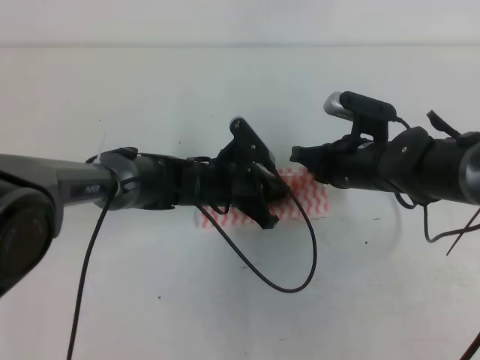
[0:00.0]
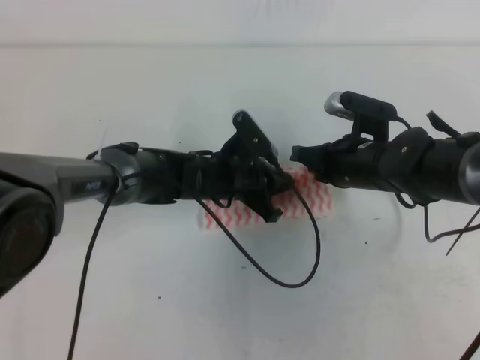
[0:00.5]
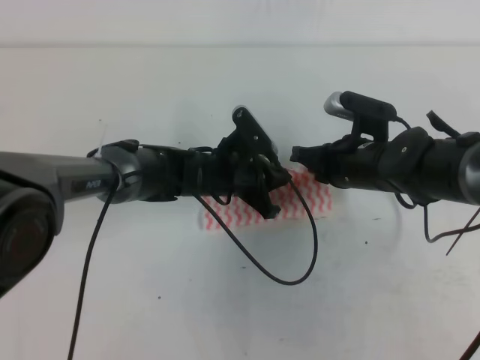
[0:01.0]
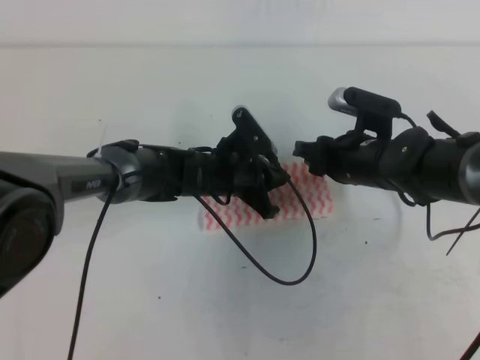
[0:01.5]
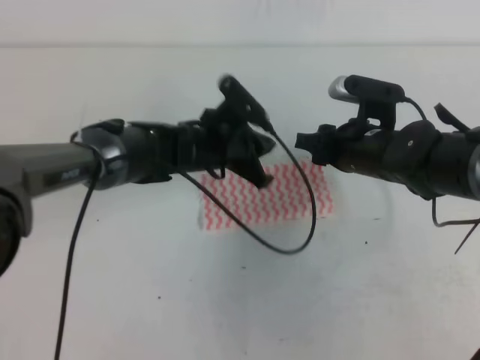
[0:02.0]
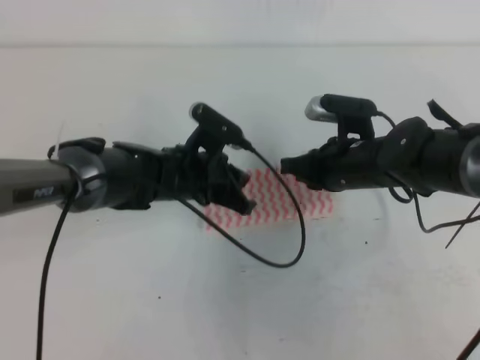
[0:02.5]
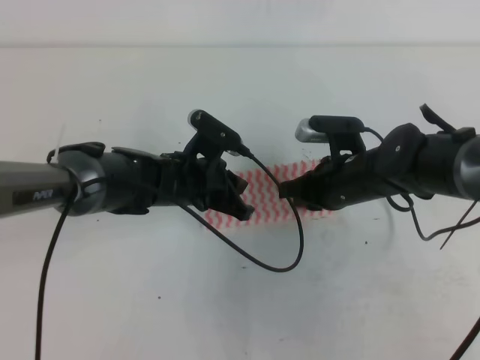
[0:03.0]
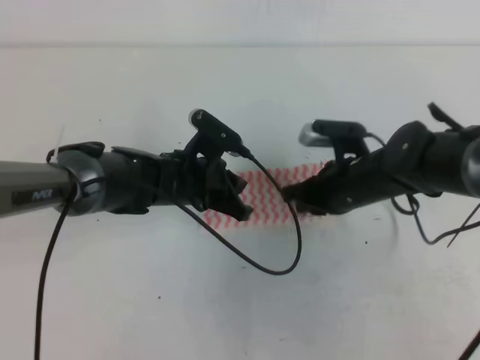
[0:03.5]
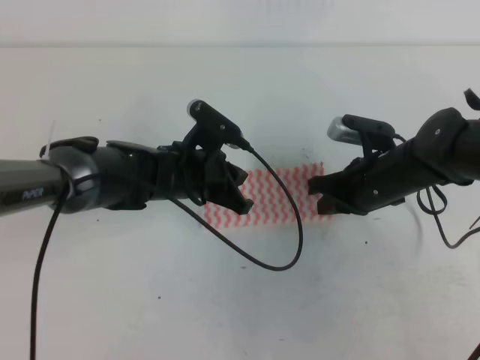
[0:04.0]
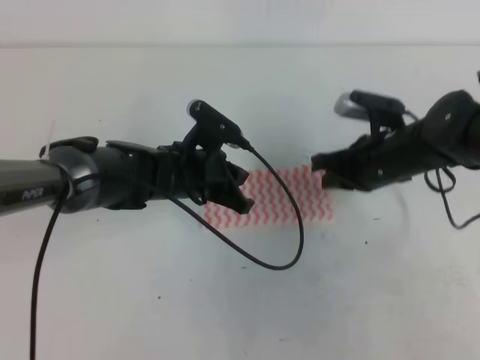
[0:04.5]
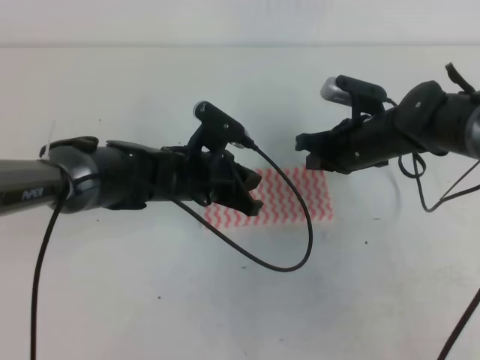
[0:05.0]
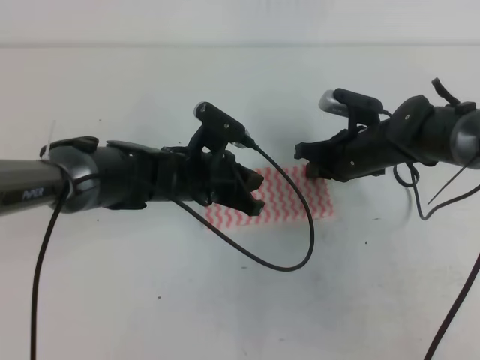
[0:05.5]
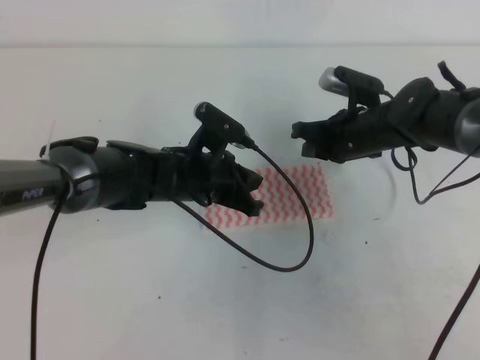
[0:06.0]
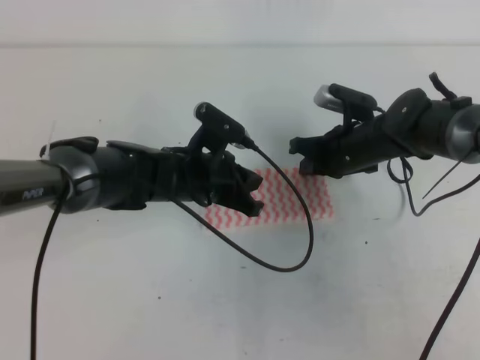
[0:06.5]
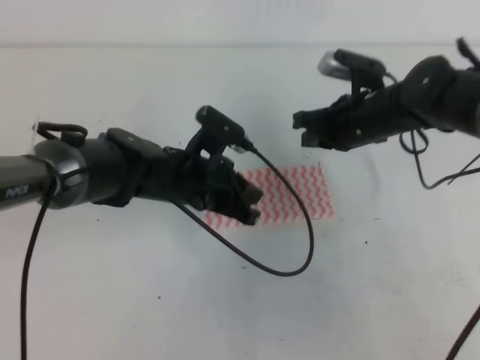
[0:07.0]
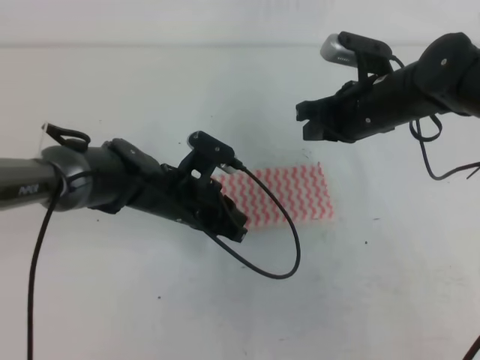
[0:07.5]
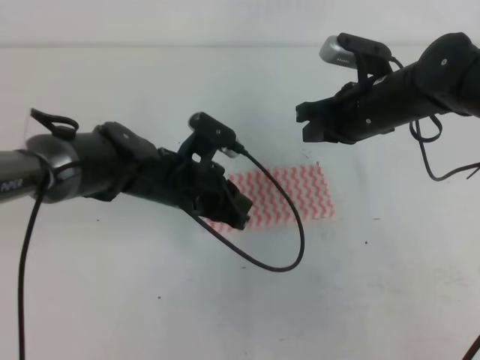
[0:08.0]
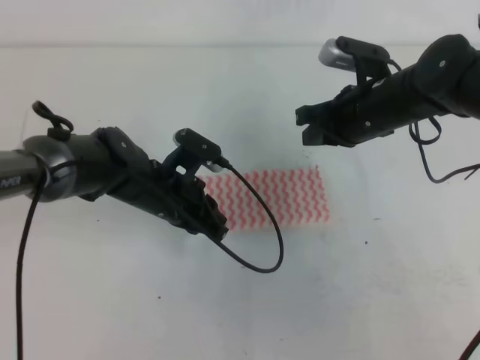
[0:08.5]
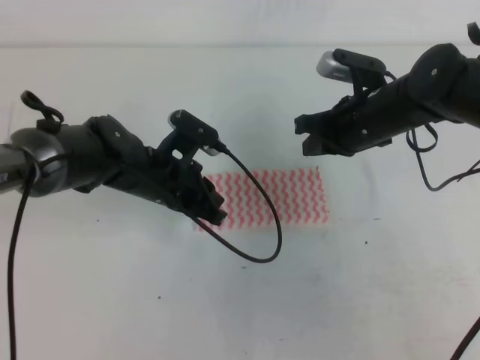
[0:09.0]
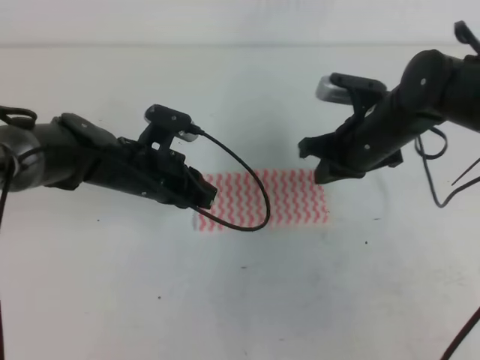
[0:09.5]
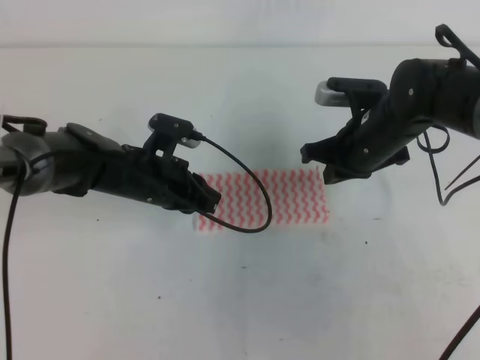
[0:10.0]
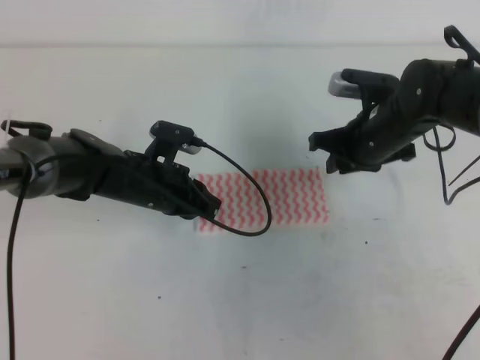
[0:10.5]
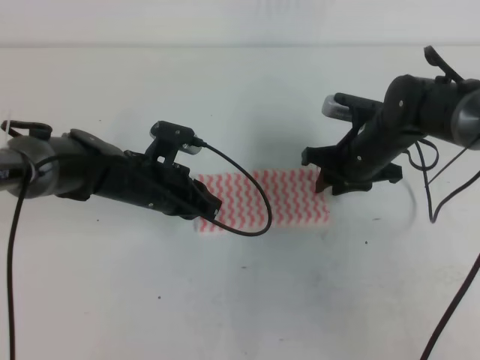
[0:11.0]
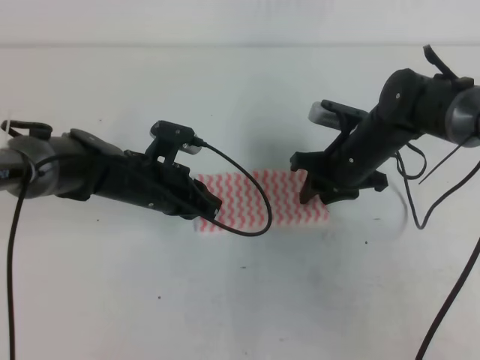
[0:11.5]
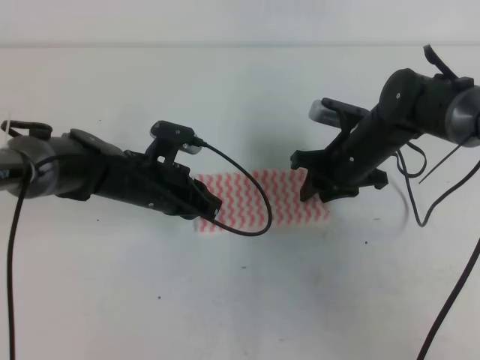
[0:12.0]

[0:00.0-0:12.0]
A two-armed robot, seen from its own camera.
0:00.0 to 0:02.0: The right gripper opens up.
0:02.0 to 0:04.0: The right gripper closes.
0:04.0 to 0:06.0: The right gripper shifts roughly 5 cm forward.
0:06.0 to 0:08.0: The right gripper shifts some 10 cm upward.
0:08.0 to 0:10.0: The left gripper ends up about 5 cm from where it was.
0:10.0 to 0:12.0: The right gripper heads downward, covering roughly 5 cm, and opens up.

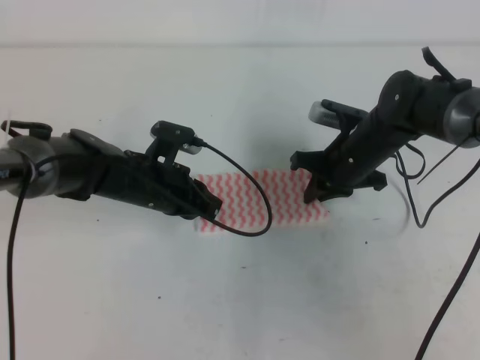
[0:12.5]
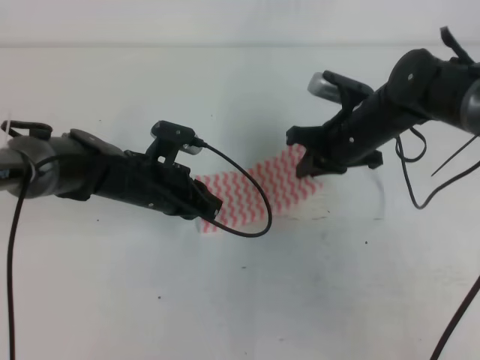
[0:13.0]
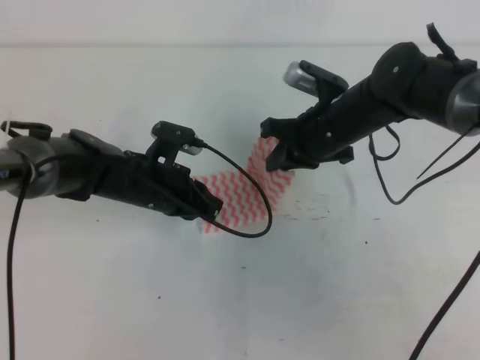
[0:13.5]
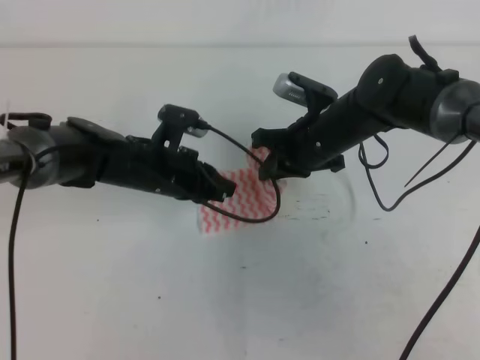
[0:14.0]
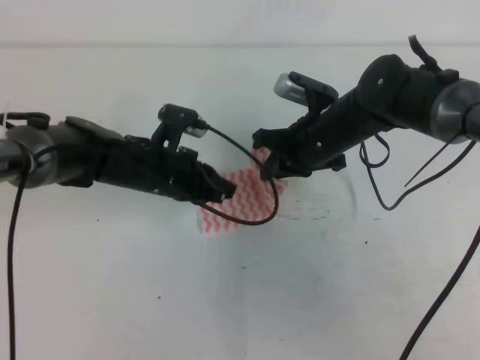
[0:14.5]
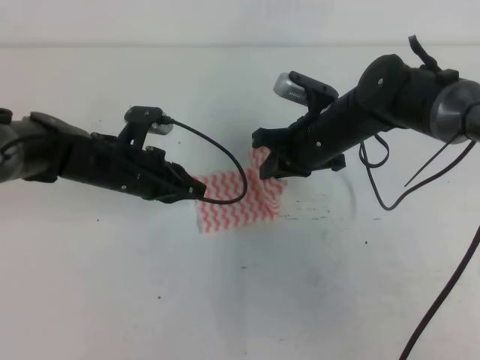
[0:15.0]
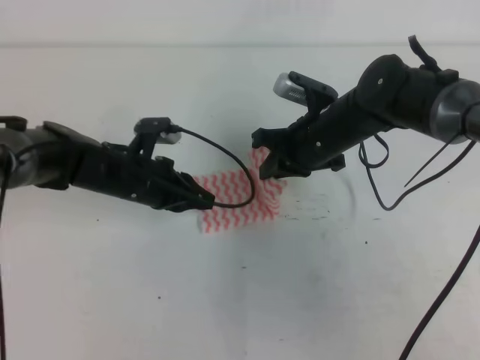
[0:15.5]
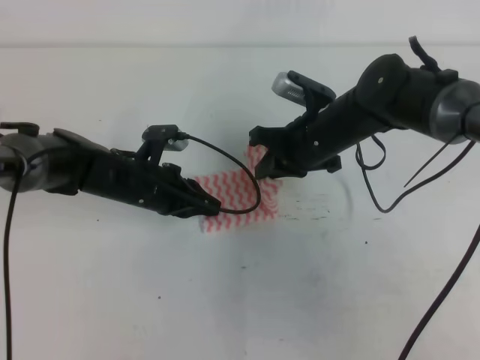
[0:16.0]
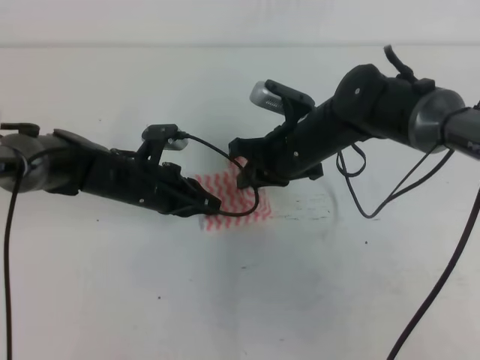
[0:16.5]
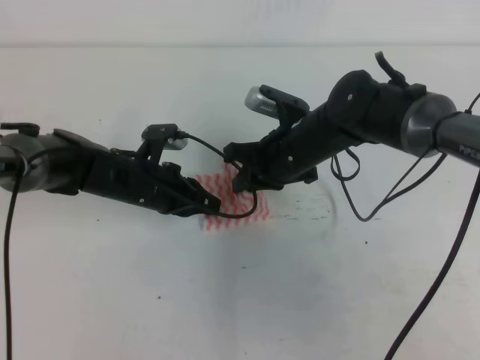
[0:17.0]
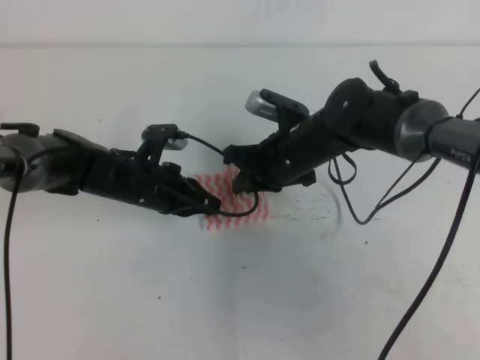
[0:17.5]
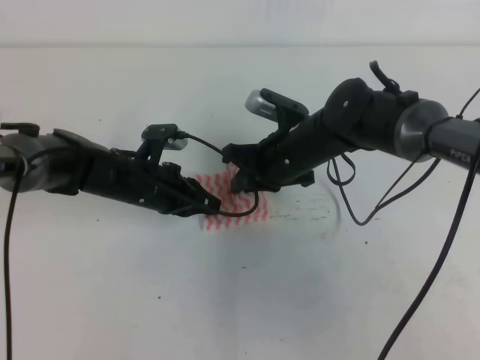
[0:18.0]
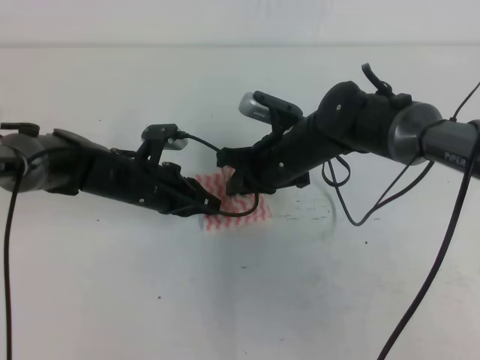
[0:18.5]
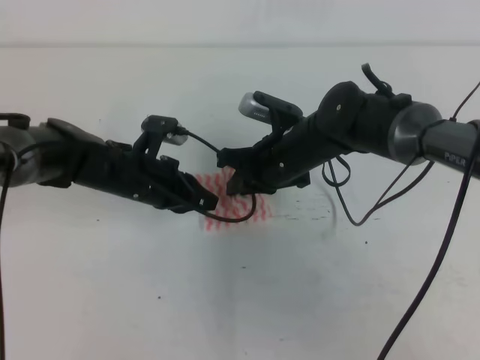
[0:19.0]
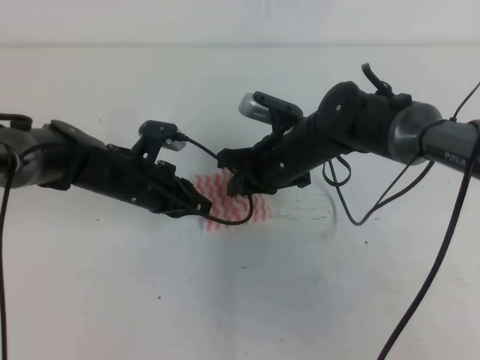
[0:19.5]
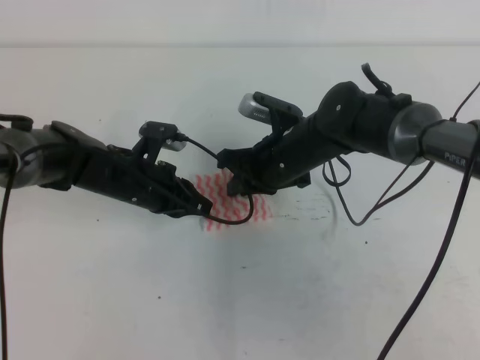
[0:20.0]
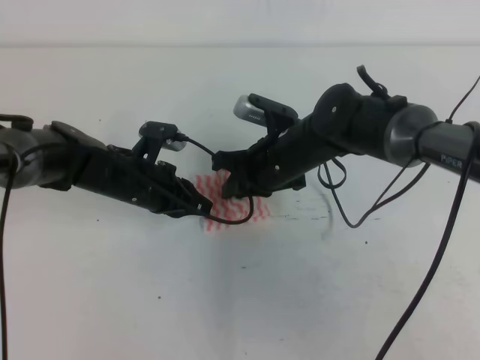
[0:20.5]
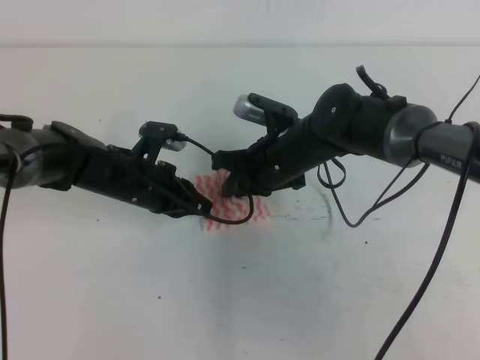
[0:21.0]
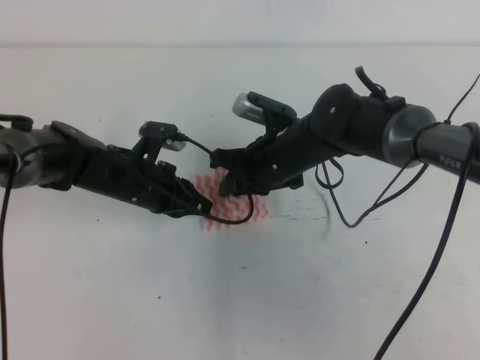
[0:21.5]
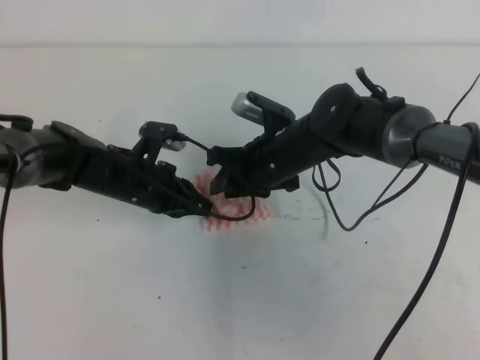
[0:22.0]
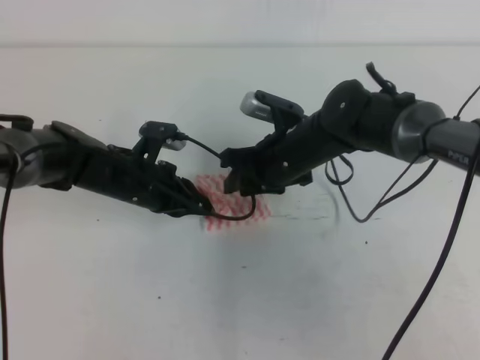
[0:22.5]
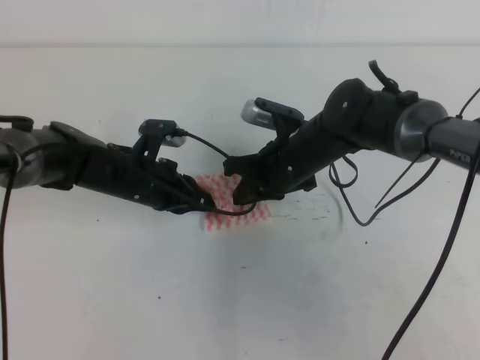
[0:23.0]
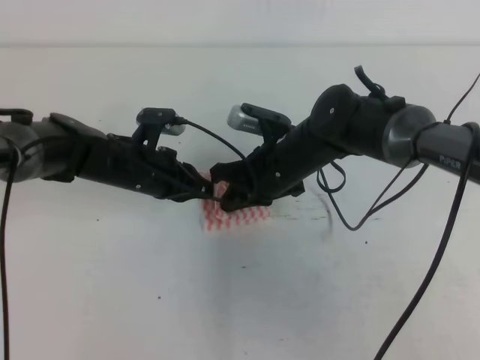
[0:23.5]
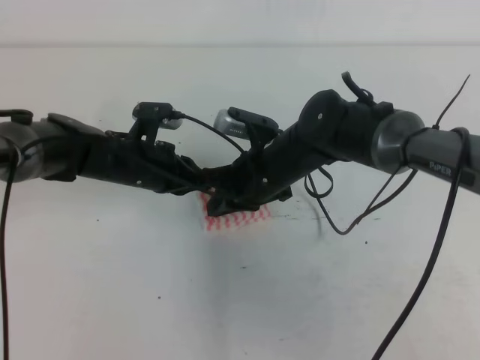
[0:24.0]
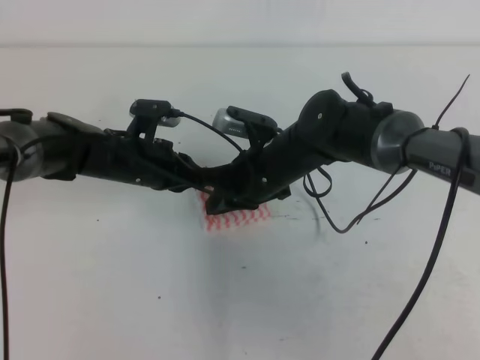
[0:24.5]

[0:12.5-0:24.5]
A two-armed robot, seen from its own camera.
0:12.5 to 0:14.5: The right gripper changes place by some 5 cm.
0:14.5 to 0:20.5: The grippers move only a little.
0:20.5 to 0:22.5: The right gripper opens its fingers.
0:22.5 to 0:24.5: The right gripper closes its fingers.

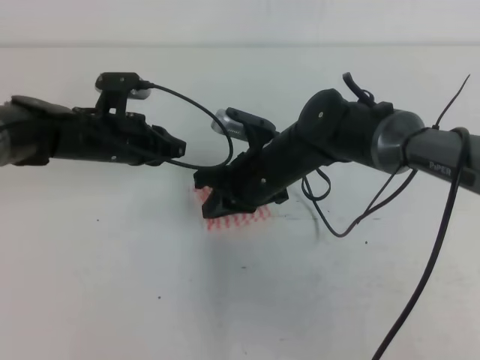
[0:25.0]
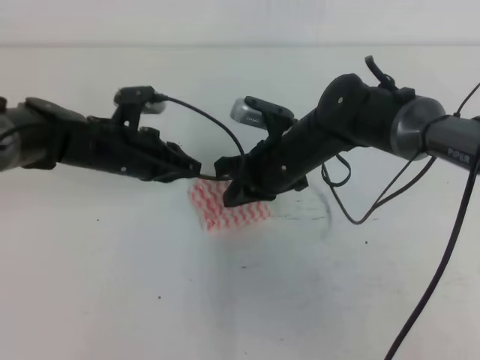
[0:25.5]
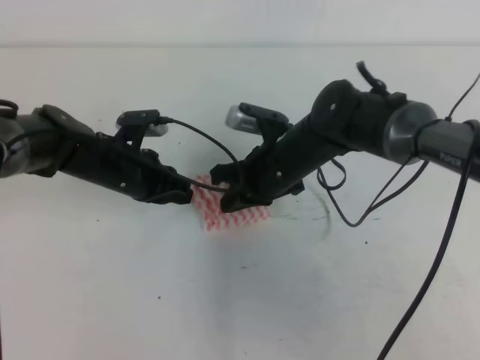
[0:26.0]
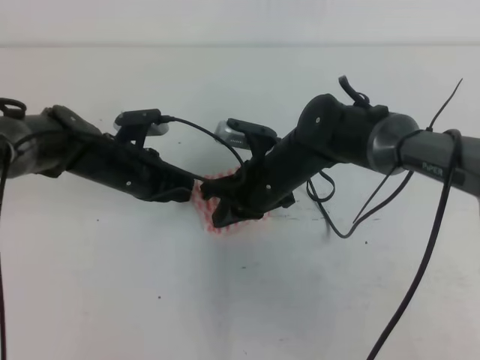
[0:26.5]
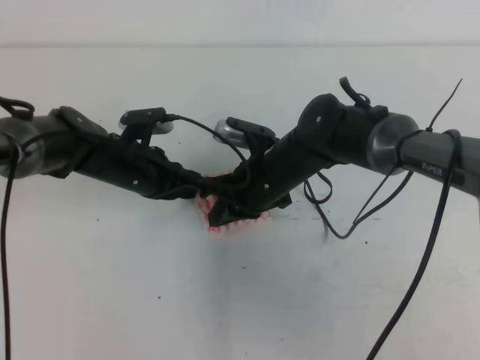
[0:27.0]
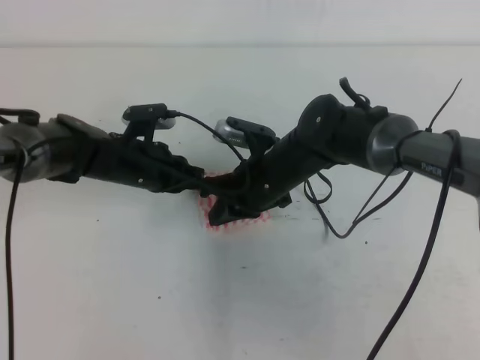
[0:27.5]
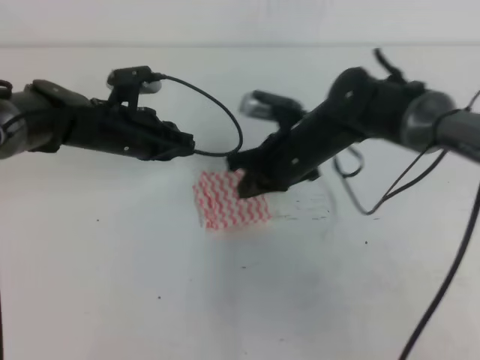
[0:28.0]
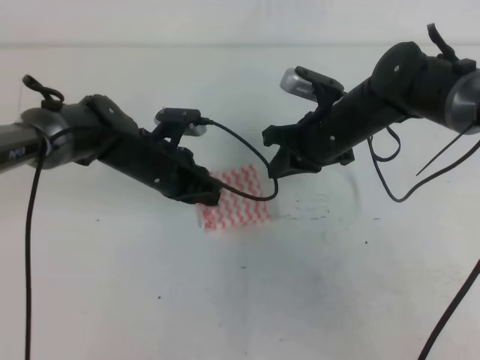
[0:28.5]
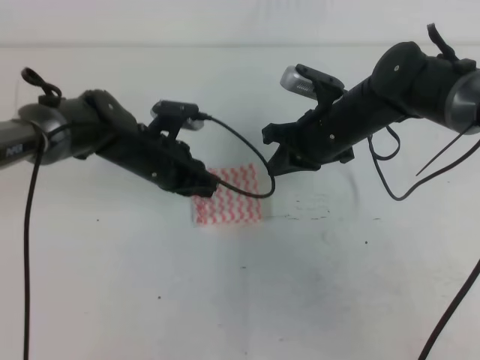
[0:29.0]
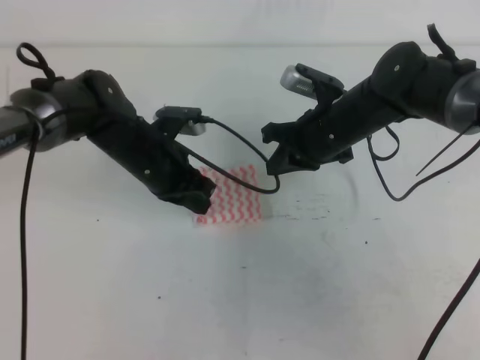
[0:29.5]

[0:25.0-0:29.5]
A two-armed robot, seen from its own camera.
0:25.0 to 0:27.0: There are only small adjustments of the grippers.
0:27.0 to 0:29.5: The right gripper is displaced to the right by about 10 cm; the left gripper changes place by some 5 cm.
